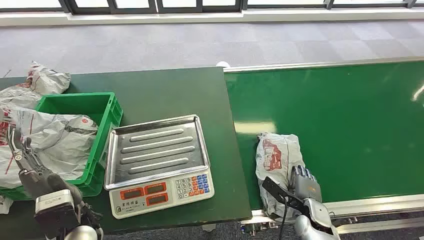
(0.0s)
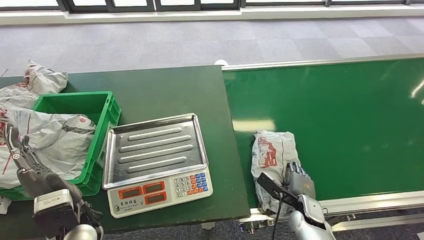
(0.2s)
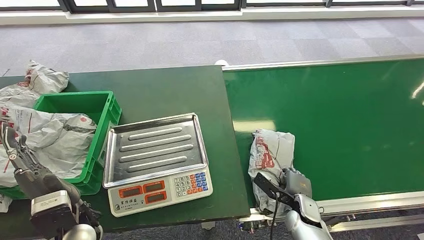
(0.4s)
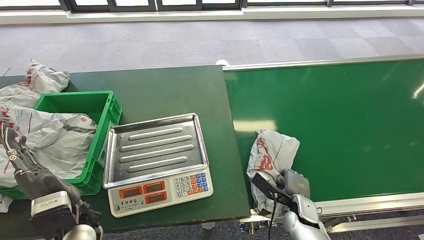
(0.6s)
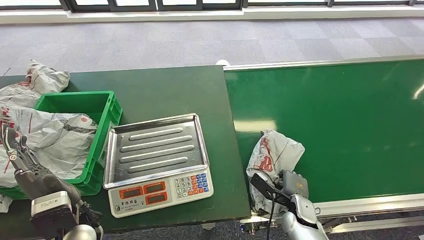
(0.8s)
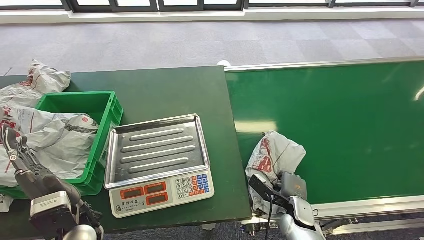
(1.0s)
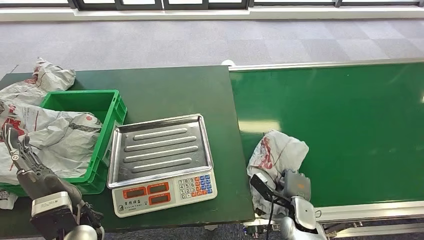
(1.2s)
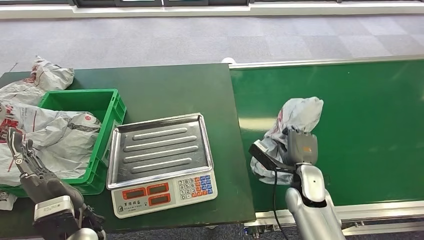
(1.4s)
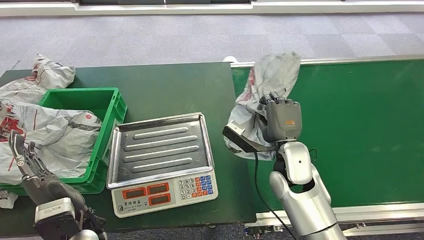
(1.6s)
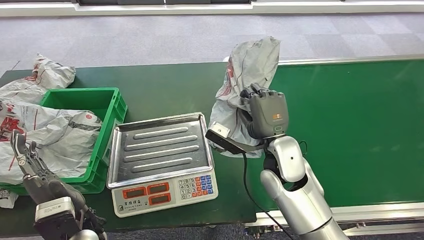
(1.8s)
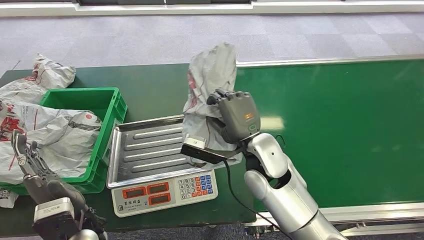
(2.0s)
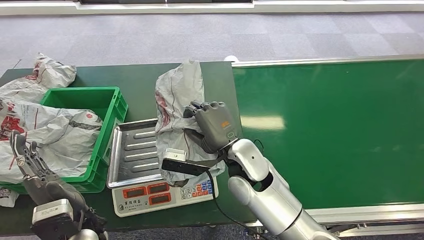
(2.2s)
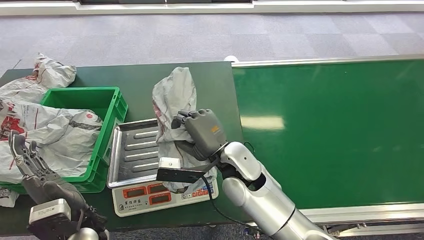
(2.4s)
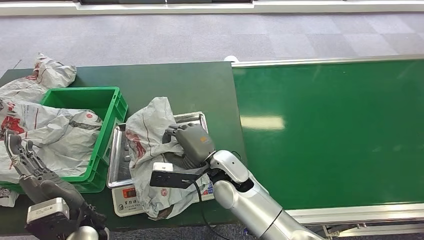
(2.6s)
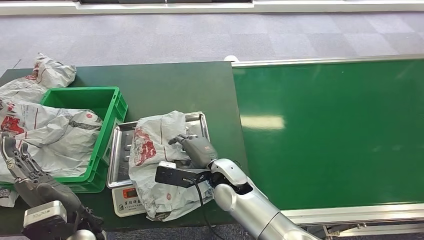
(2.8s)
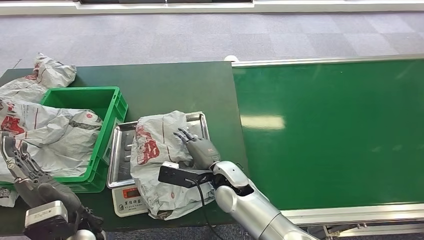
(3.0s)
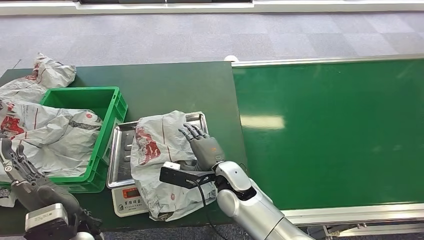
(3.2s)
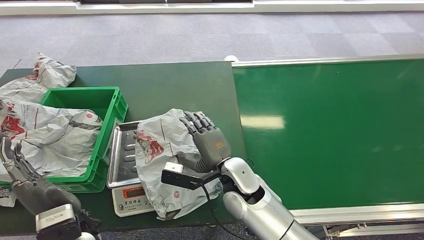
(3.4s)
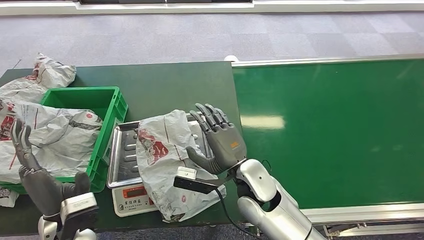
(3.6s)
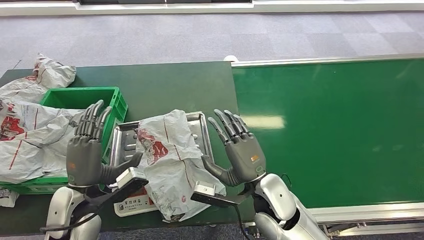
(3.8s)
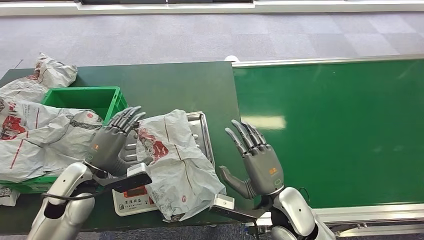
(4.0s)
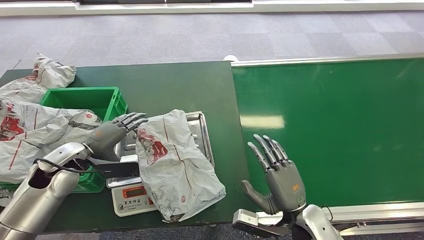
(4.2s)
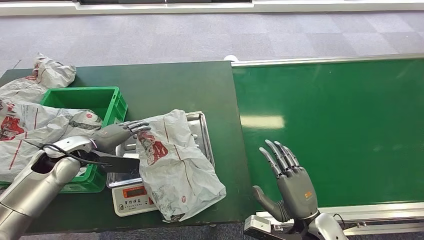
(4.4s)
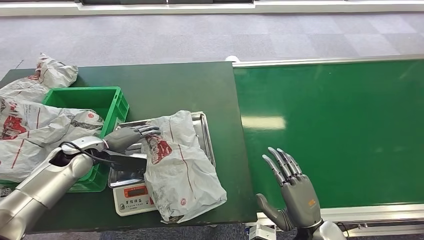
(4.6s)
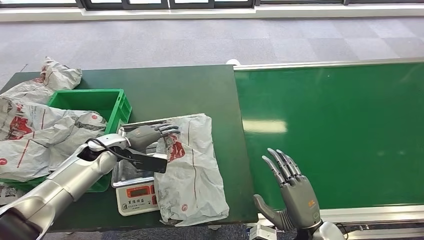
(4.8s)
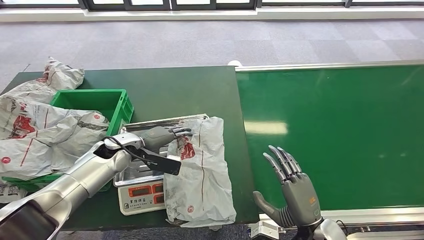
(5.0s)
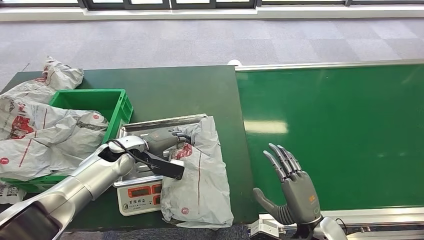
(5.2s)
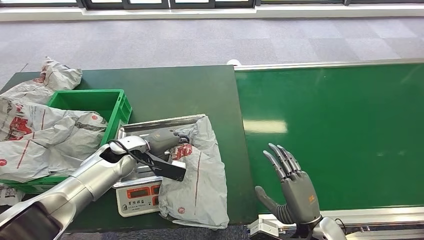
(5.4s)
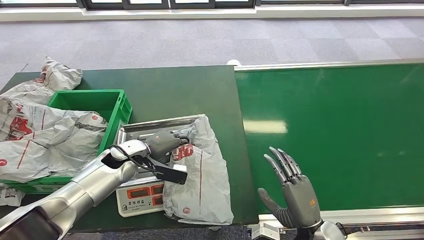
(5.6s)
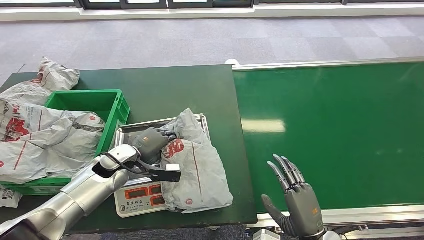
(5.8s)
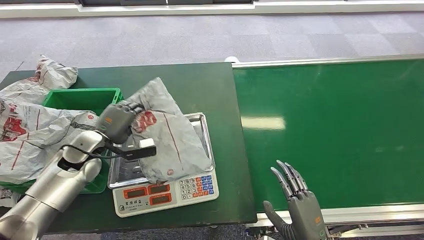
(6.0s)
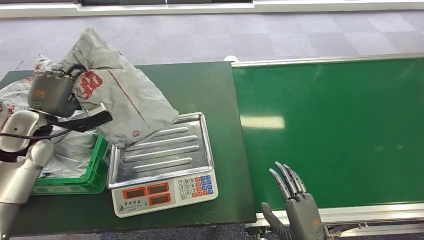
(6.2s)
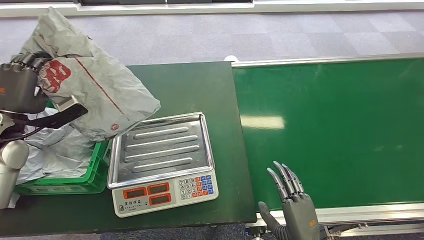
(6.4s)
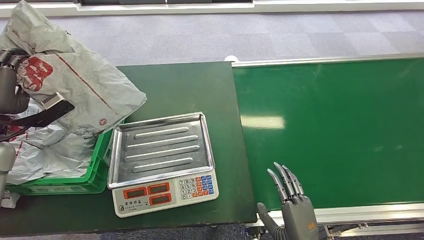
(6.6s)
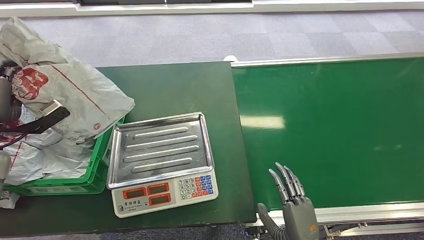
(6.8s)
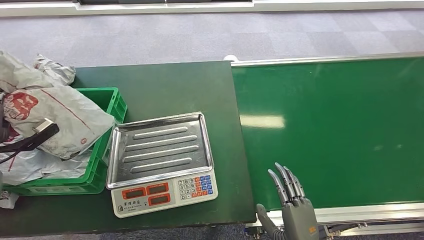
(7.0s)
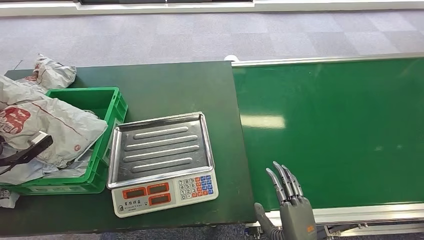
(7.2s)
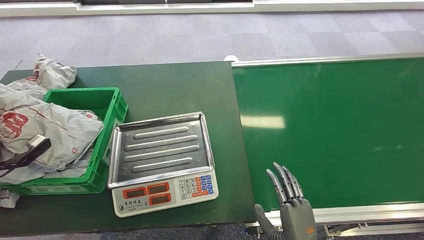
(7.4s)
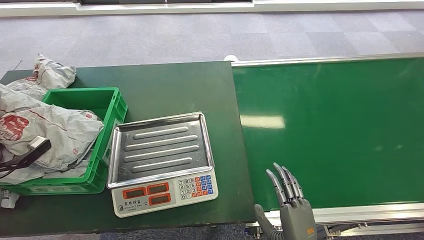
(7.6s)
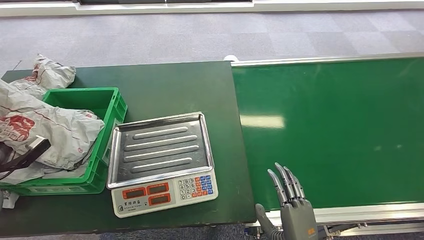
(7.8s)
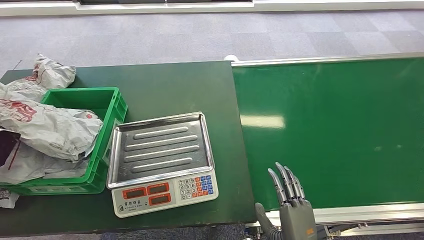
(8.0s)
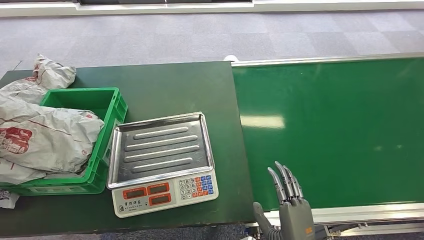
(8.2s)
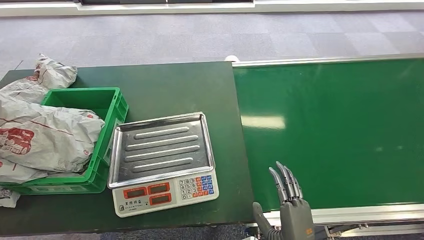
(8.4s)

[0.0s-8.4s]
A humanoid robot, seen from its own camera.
Step, 0.0s to 1.6s: Pick up the package from the conveyor belt.
Step, 1.8s to 3.6s: Place the package onto the inbound machine.
Step, 4.0s to 6.4s: Pick up the package from the inbound machine.
Step, 6.6s to 8.4s: Place the package into the parcel locker.
7.0s to 8.4s: The left hand is displaced backward by roughly 10 cm.

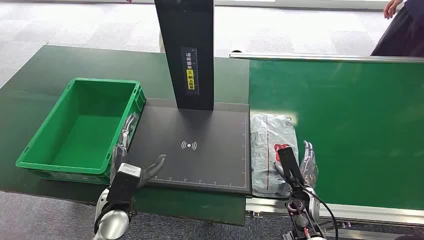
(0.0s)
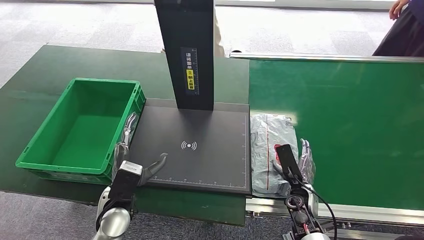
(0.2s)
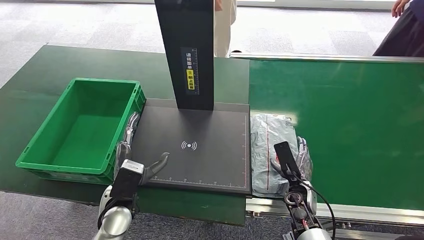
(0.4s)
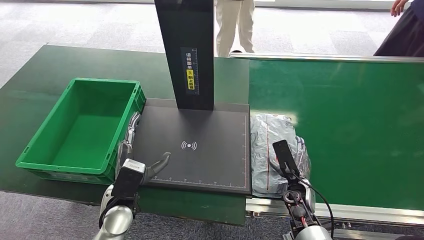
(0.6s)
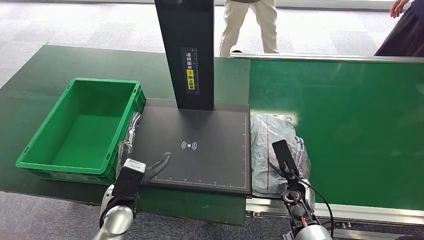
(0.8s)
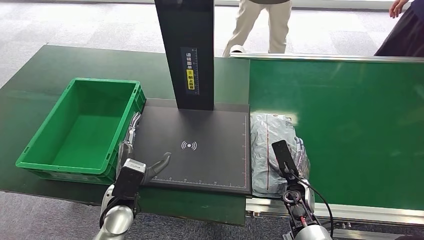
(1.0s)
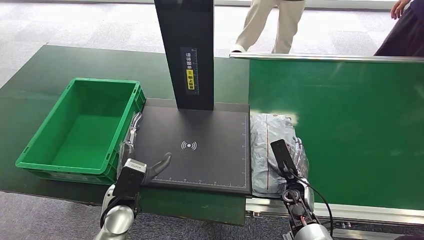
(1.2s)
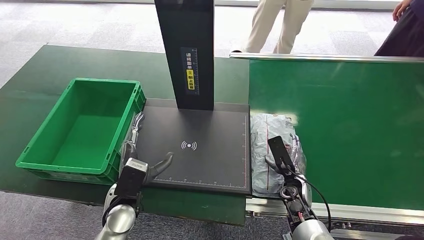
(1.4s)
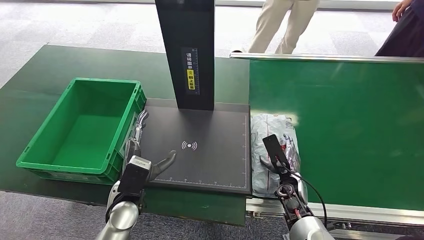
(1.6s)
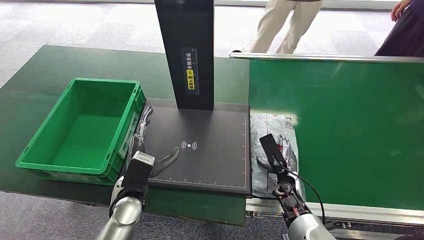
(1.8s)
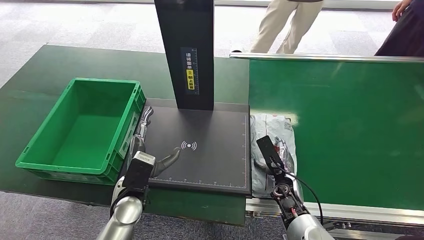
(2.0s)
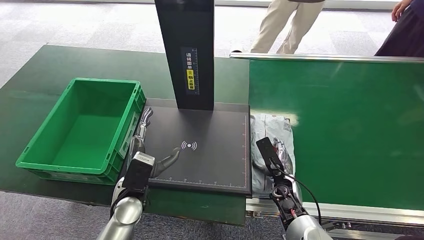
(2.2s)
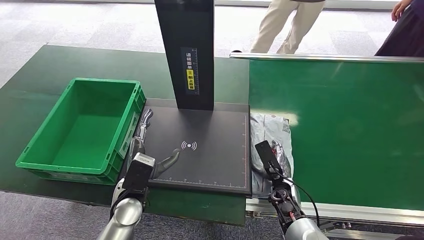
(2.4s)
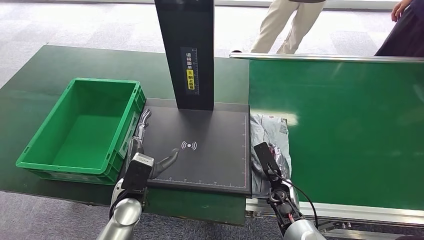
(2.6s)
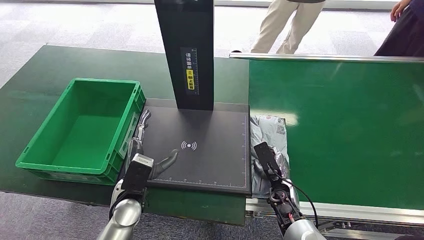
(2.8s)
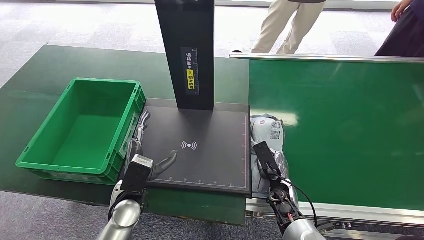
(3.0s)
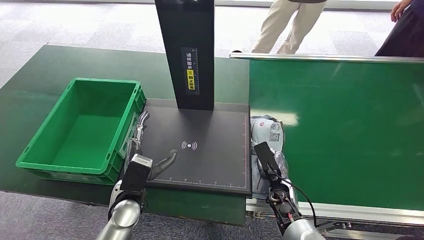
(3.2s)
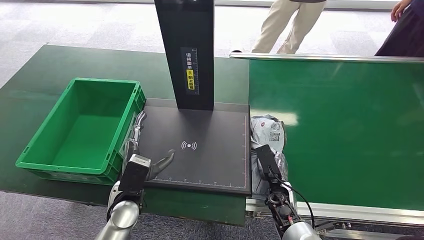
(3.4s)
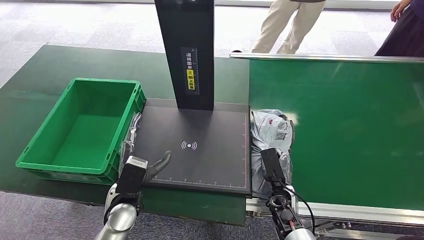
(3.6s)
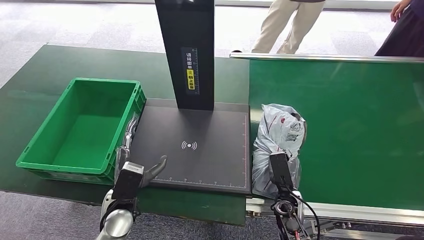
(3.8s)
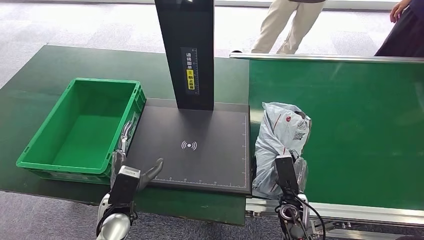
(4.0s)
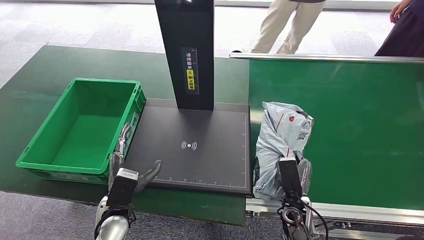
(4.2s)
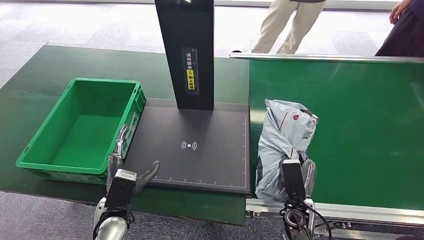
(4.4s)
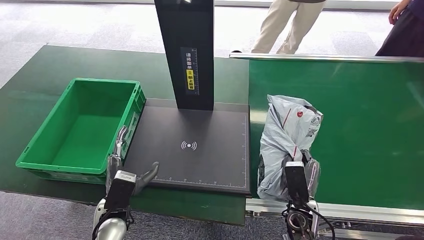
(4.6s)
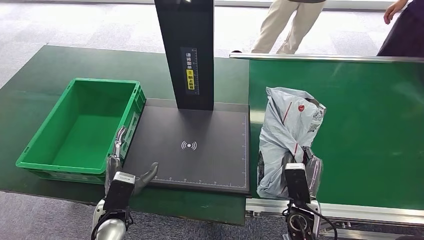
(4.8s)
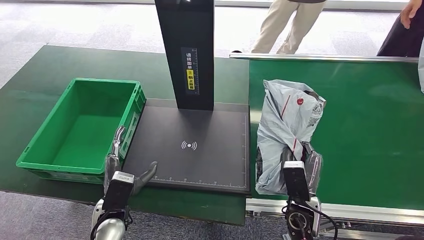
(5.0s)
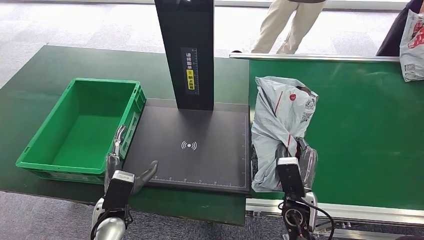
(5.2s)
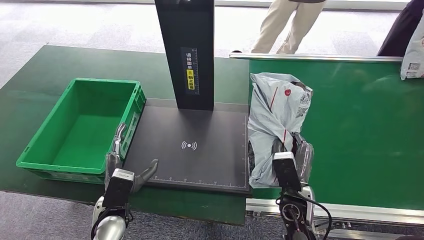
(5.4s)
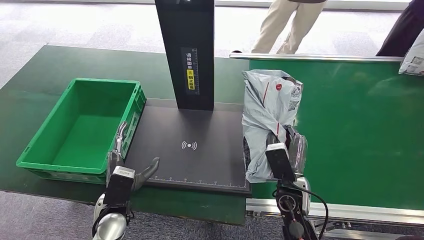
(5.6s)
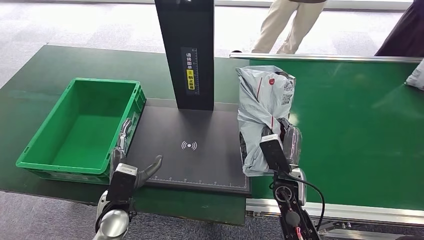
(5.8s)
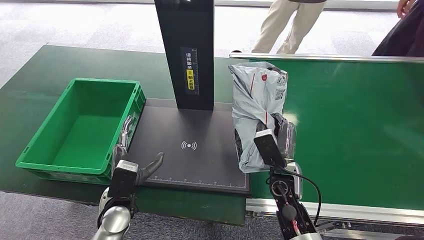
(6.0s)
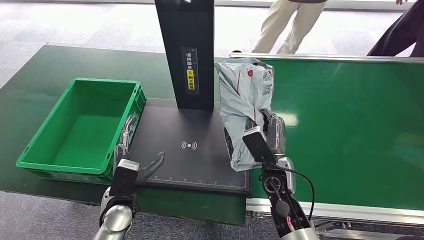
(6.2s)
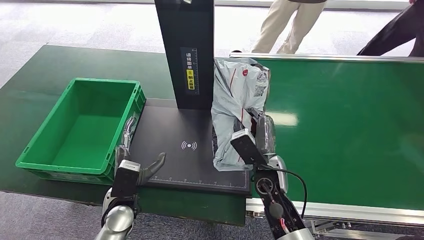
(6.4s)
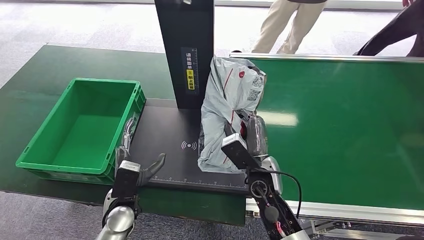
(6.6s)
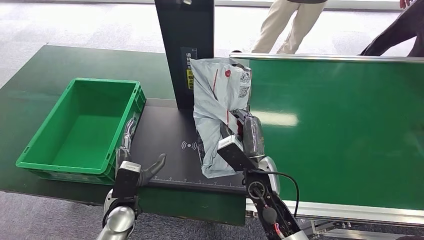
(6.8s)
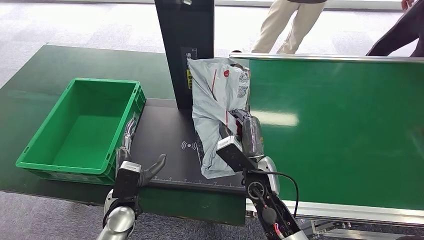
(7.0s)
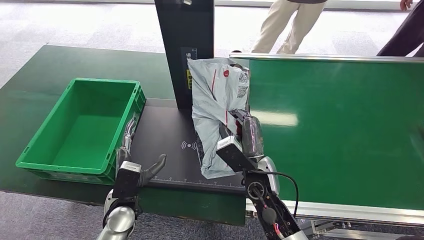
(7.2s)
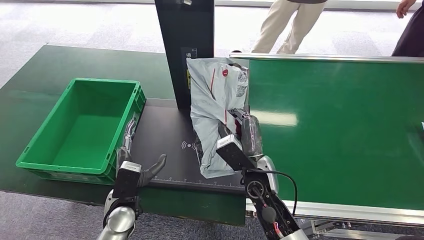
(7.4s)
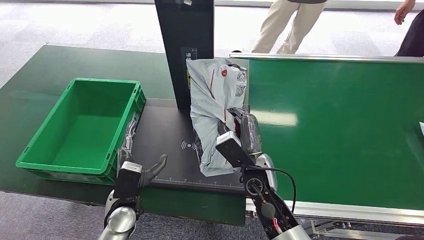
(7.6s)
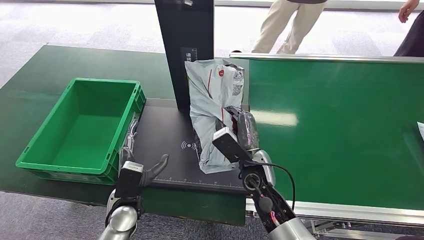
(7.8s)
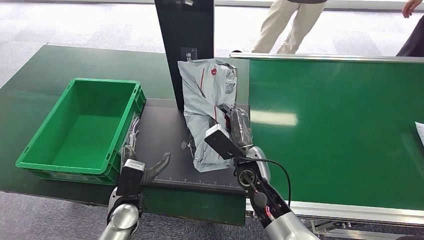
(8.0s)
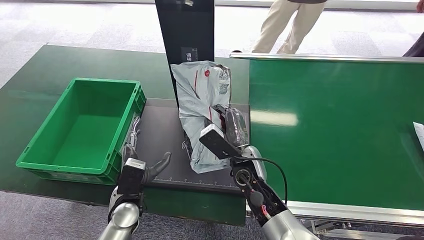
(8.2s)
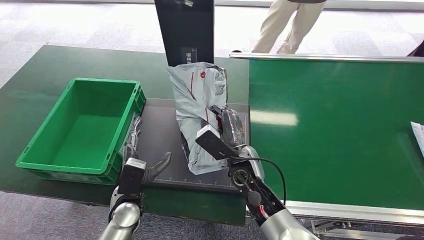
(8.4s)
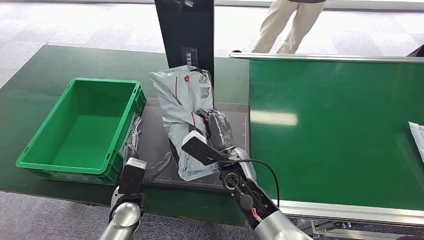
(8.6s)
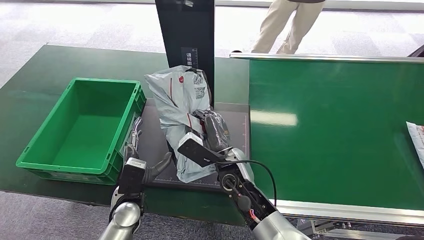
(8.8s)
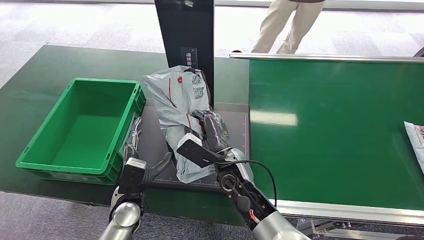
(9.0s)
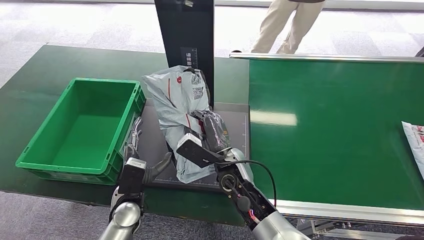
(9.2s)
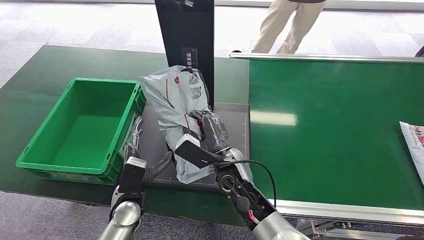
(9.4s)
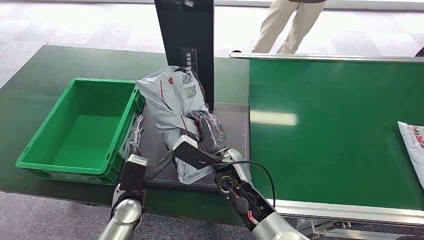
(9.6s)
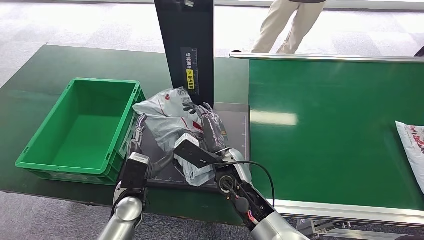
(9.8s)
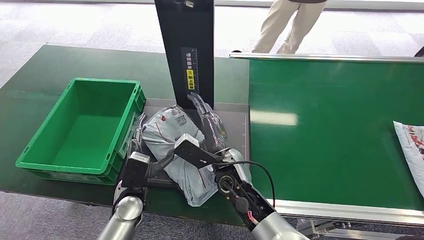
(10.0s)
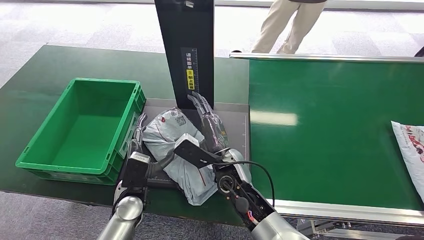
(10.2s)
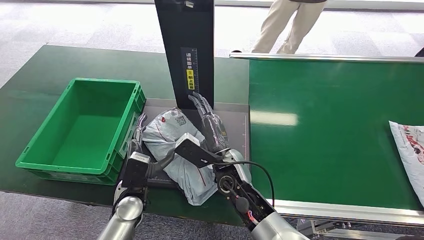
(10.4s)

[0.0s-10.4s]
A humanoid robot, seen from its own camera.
Step, 0.0s to 5.0s: Pick up the package from the conveyor belt.
1.4s to 3.0s: The hands make only small movements.
3.0s to 4.4s: The left hand changes place by roughly 5 cm; the right hand is displaced backward by approximately 5 cm.
4.4s to 6.0s: The right hand goes some 10 cm upward and forward.
6.0s to 7.4s: The right hand shifts roughly 5 cm to the left.
7.4s to 9.0s: The right hand heads to the left, covering roughly 5 cm.
9.0s to 10.4s: Both hands stay put.
